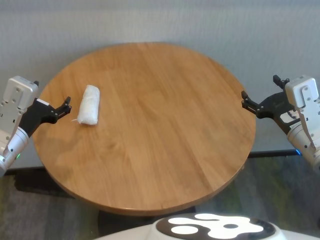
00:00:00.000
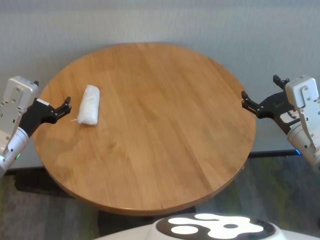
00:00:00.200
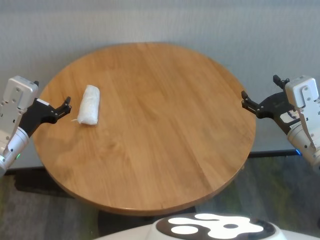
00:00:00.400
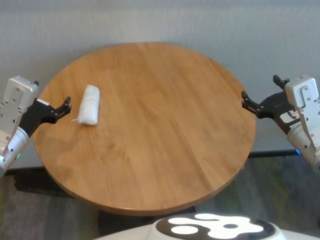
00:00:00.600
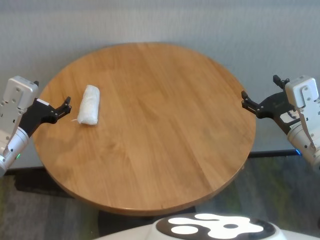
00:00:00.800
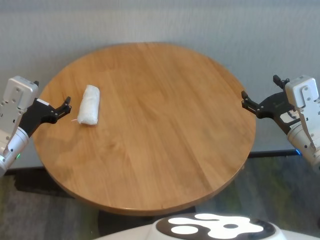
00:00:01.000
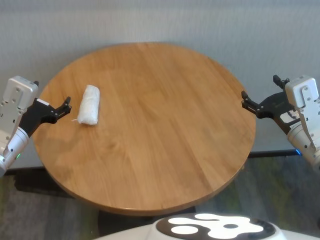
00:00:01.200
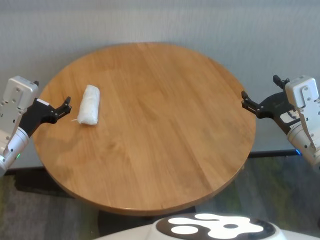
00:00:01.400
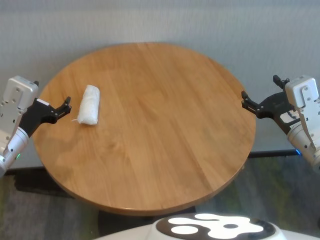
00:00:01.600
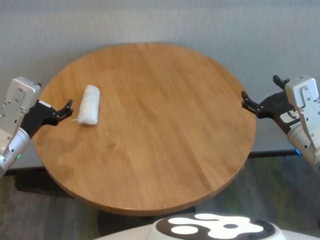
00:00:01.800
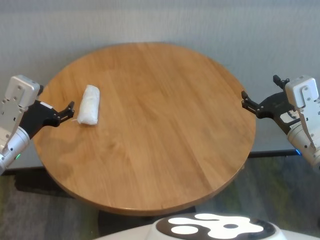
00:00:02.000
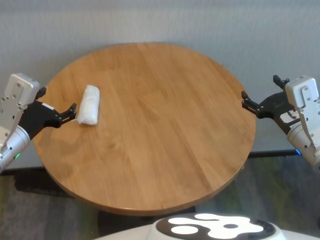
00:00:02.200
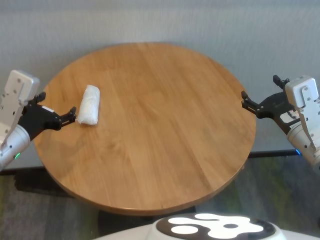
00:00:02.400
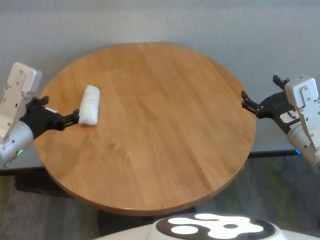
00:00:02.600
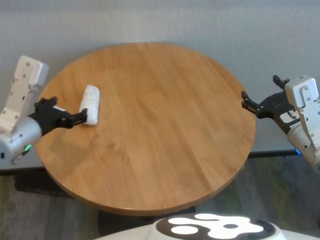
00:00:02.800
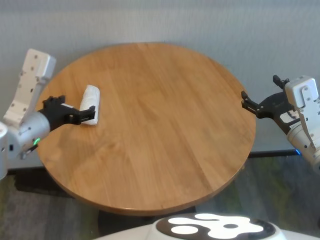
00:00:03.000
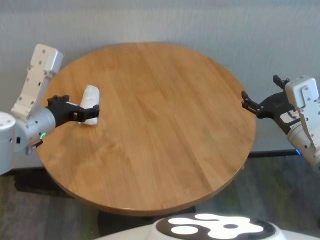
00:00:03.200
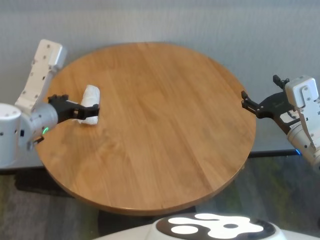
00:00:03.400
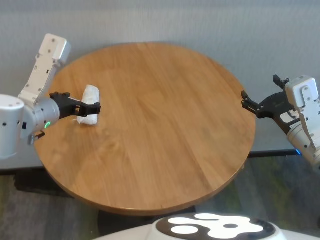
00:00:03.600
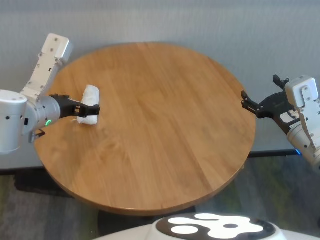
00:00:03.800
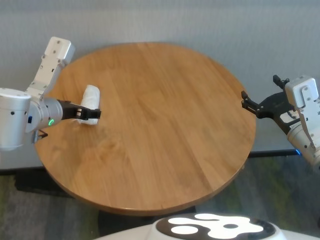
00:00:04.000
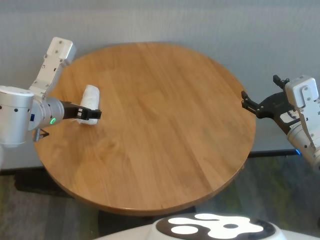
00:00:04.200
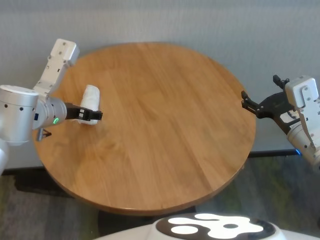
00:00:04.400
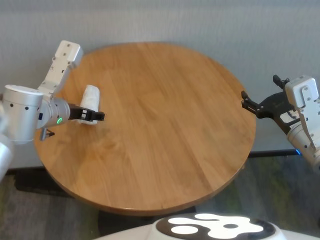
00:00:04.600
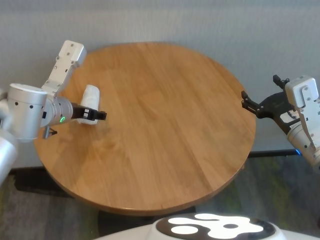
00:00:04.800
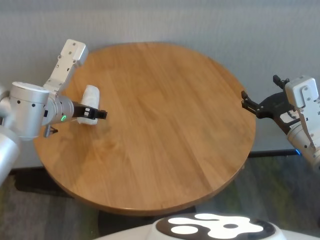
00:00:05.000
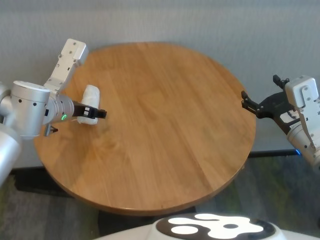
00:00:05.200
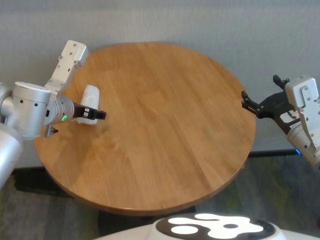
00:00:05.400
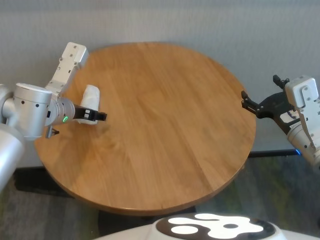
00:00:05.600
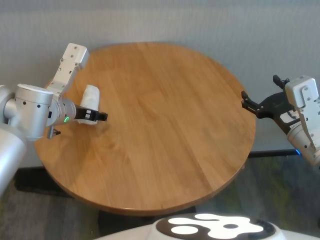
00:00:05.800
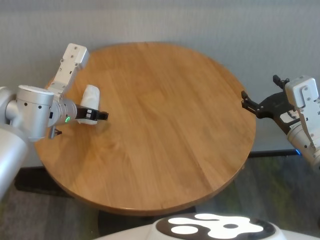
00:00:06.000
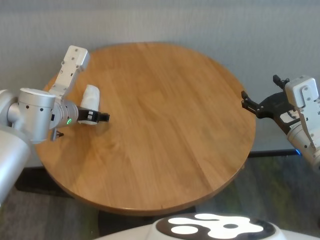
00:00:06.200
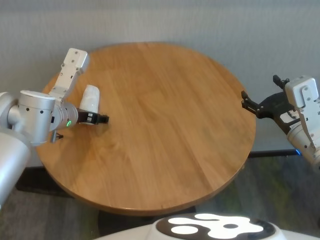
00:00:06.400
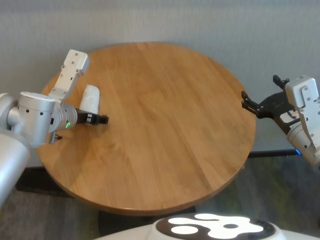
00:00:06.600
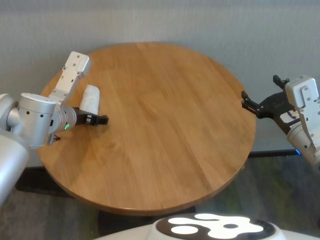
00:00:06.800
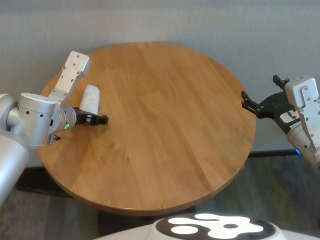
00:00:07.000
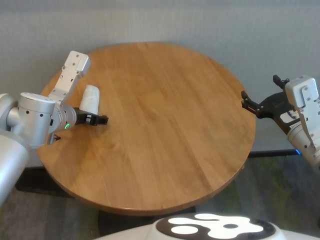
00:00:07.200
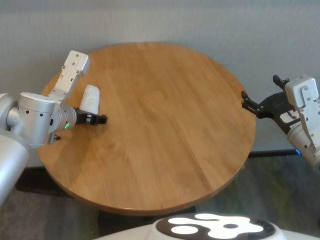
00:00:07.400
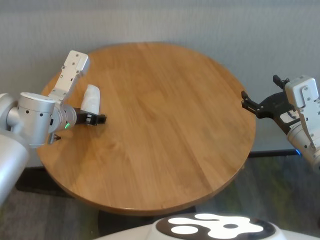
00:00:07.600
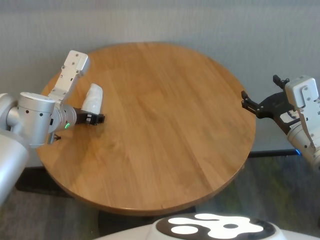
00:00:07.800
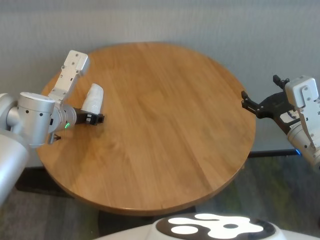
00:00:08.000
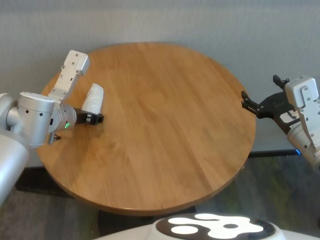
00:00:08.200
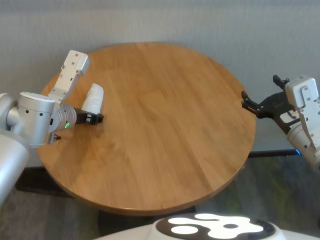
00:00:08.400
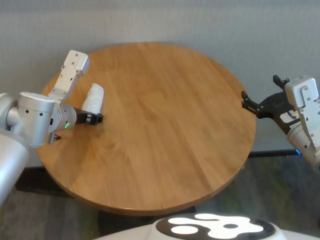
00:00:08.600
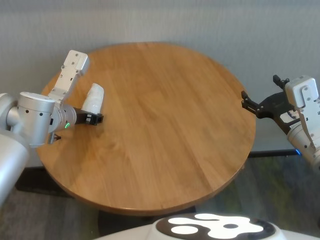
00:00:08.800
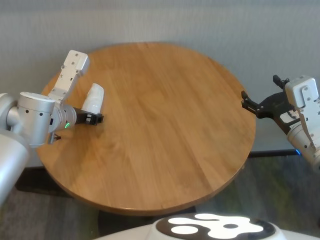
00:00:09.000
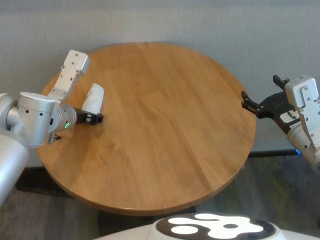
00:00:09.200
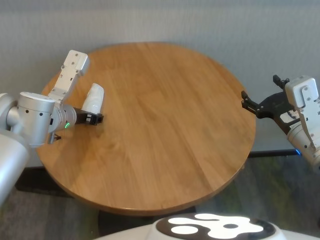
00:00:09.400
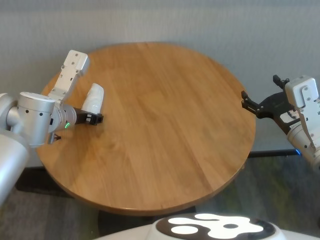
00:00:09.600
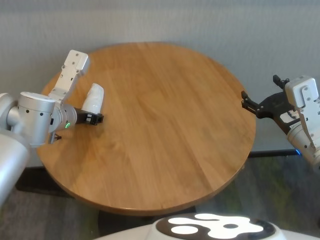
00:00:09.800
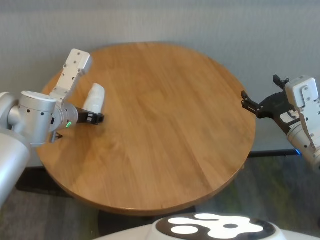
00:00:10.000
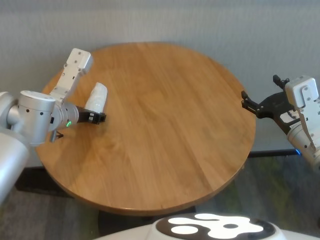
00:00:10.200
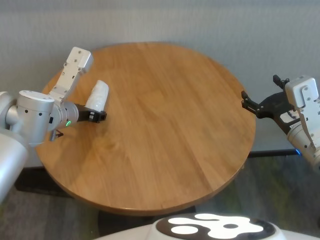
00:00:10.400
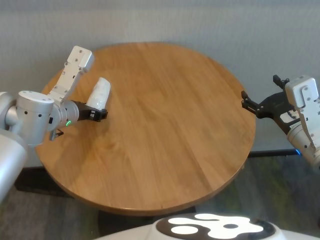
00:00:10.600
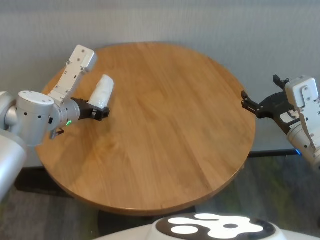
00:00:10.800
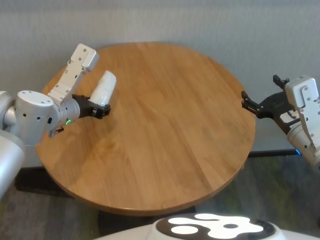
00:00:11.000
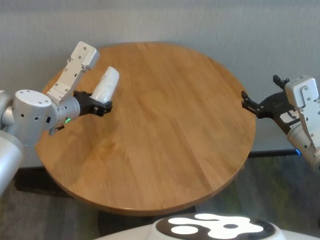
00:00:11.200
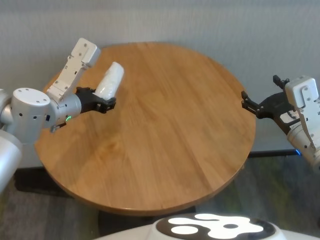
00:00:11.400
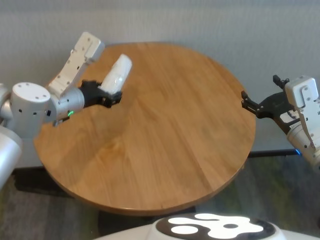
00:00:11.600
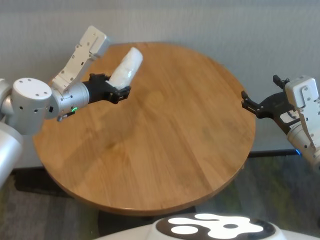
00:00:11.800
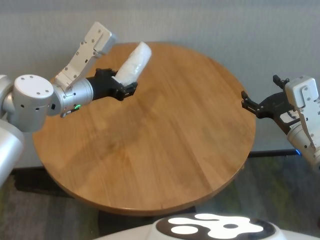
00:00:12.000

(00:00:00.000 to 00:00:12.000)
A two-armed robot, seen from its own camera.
Task of the whole recording: One hand took the sandbag from the other hand and placed it on the table.
Step, 00:00:00.000 - 00:00:08.400: Grasp the paper ball with left gripper.

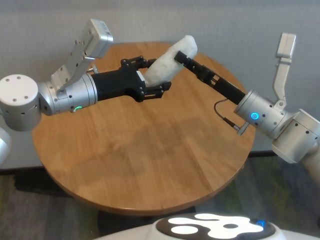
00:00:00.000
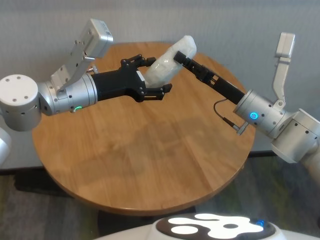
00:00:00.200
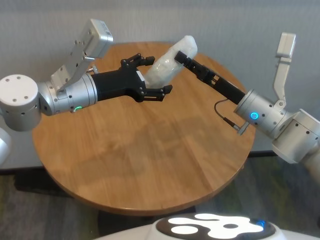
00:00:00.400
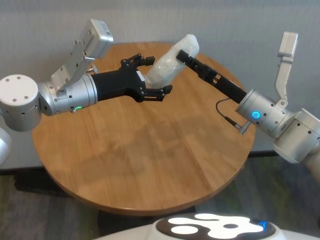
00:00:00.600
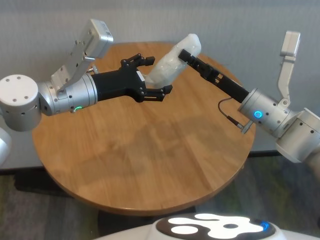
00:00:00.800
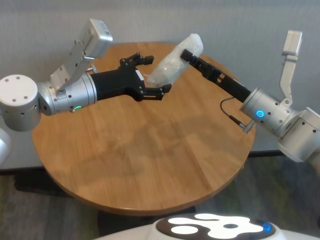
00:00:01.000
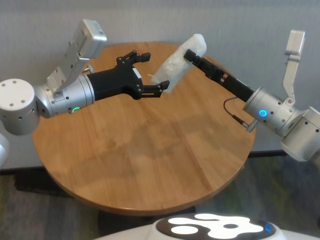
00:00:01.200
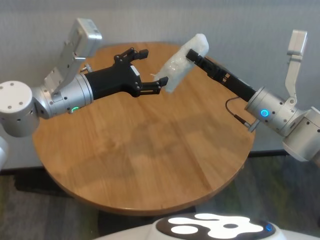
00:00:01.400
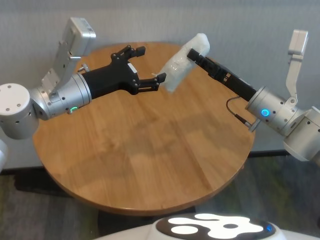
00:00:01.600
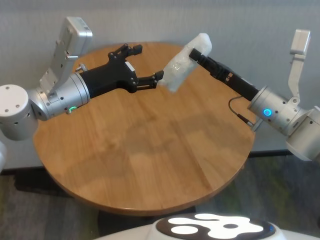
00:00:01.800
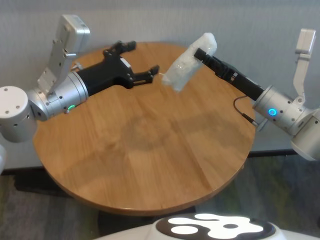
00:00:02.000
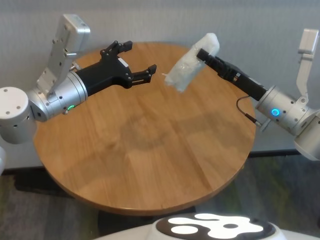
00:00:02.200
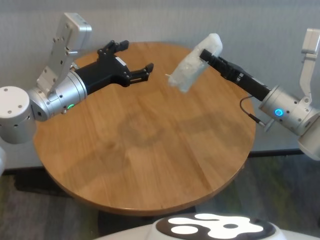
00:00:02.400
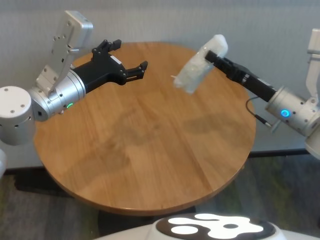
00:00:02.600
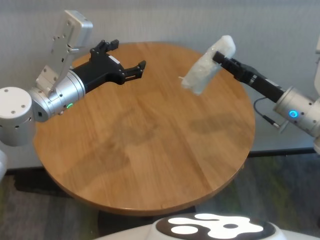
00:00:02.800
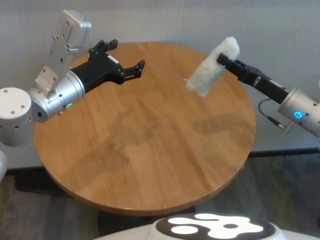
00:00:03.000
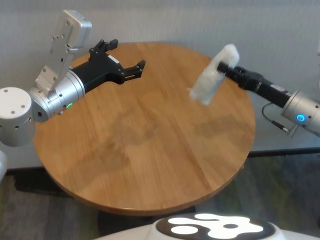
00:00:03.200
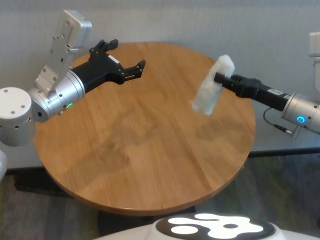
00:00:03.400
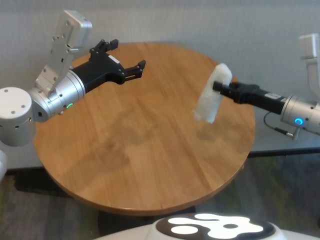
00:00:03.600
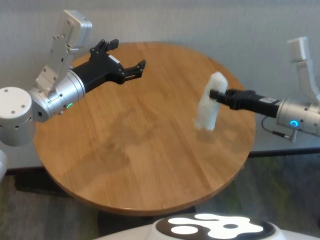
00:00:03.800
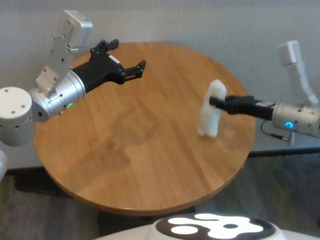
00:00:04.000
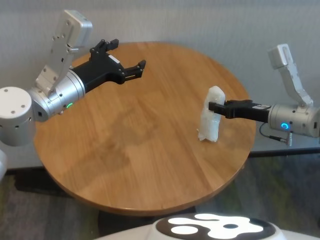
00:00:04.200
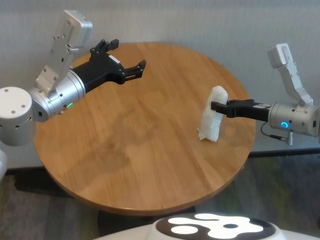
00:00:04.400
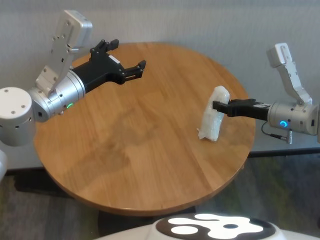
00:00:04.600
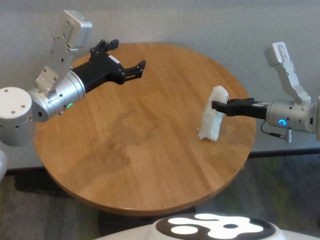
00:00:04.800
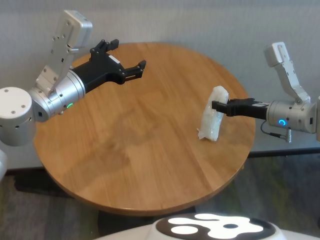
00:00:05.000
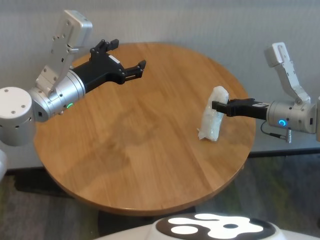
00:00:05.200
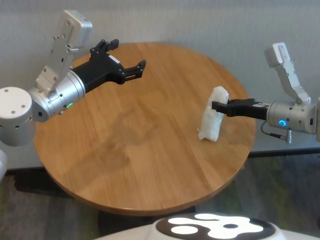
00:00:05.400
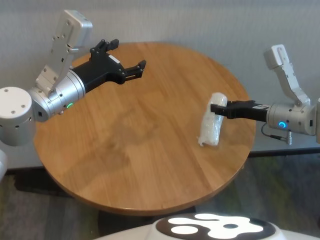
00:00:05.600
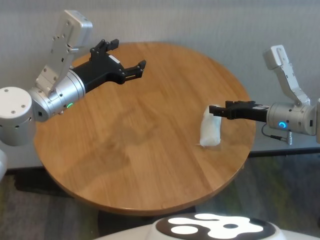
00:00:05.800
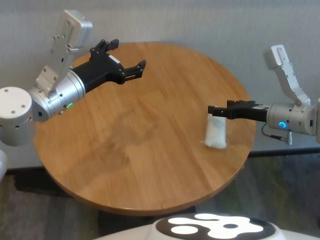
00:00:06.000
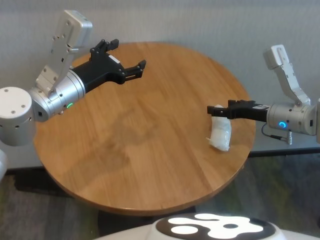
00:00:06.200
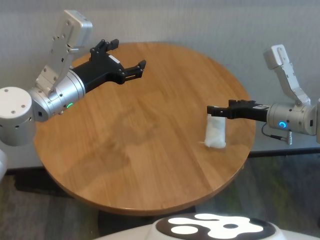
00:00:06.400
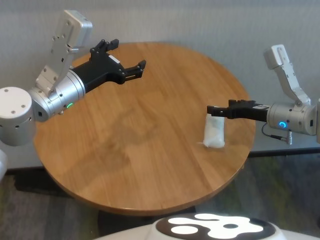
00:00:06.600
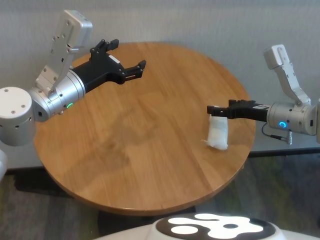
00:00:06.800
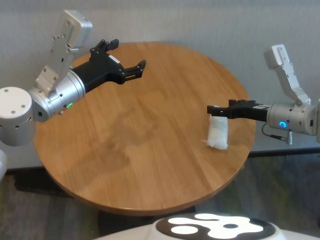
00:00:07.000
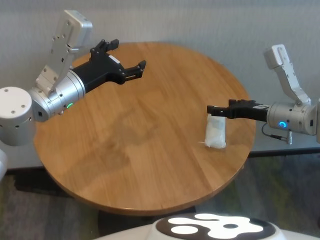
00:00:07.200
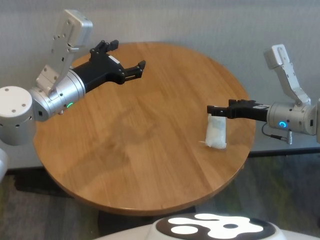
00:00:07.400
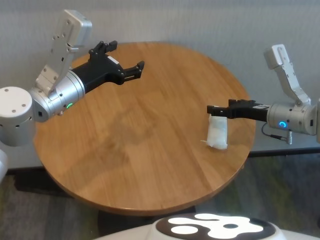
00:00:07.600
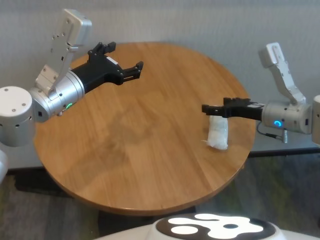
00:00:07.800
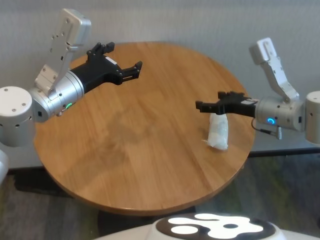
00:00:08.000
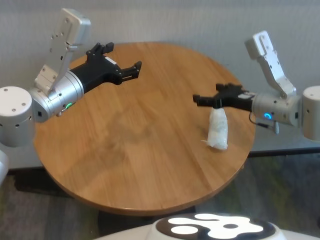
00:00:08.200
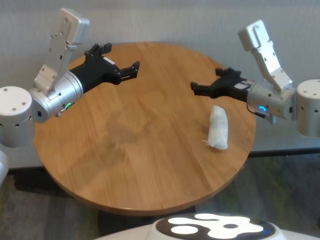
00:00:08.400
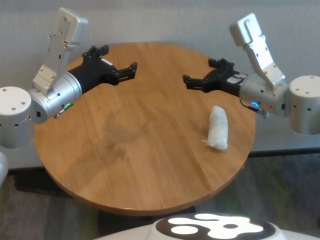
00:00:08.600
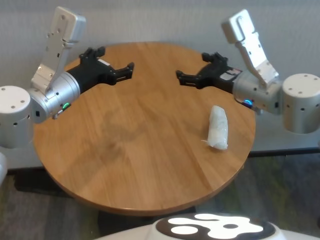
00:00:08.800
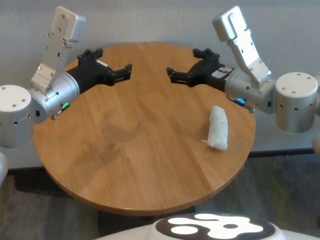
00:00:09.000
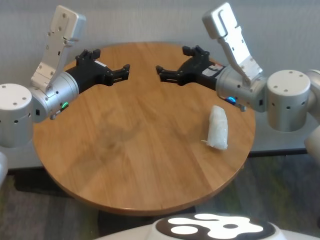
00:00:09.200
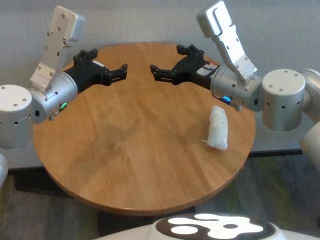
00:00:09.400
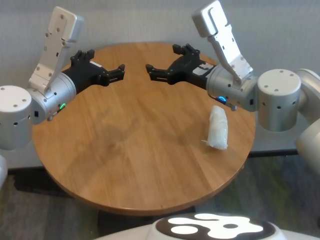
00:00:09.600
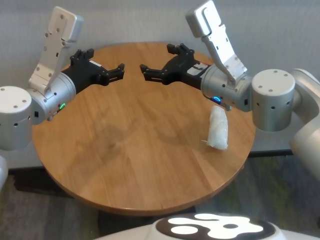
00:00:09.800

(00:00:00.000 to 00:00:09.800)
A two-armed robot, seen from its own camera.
Task of the whole recording: One hand took the sandbag from the other hand and placed it on the table.
Step, 00:00:01.400 - 00:00:06.200: Place the paper ball on the table with right gripper.
